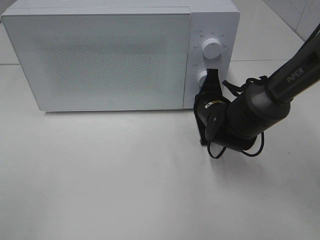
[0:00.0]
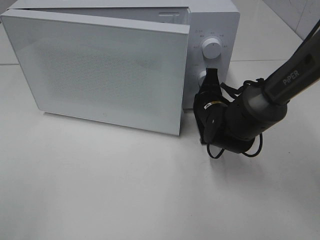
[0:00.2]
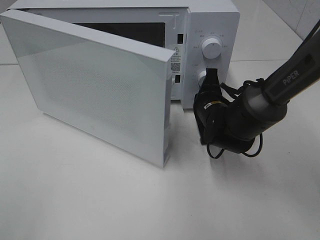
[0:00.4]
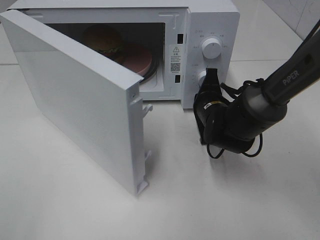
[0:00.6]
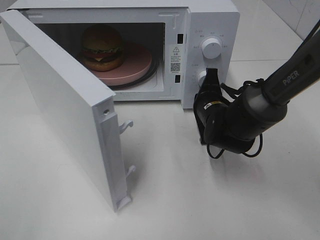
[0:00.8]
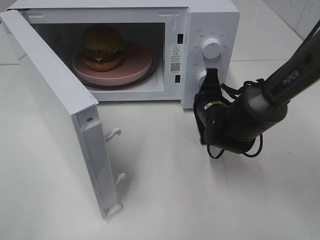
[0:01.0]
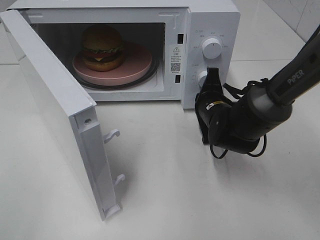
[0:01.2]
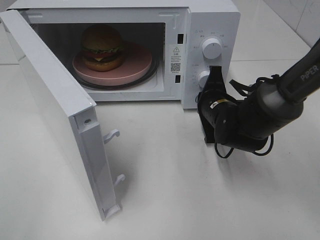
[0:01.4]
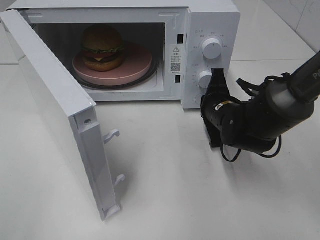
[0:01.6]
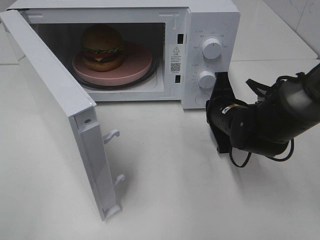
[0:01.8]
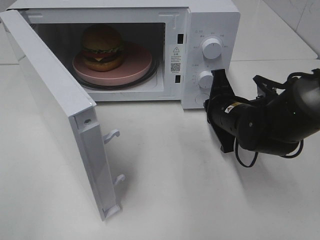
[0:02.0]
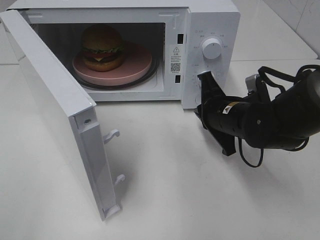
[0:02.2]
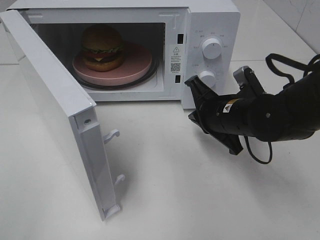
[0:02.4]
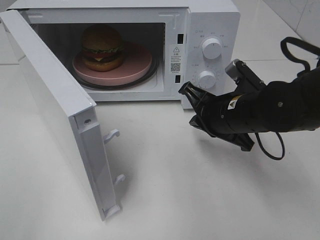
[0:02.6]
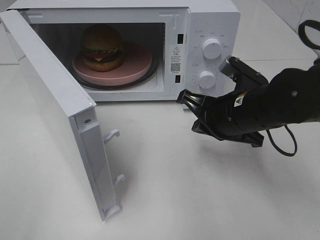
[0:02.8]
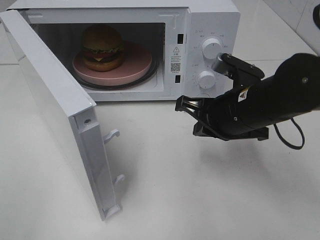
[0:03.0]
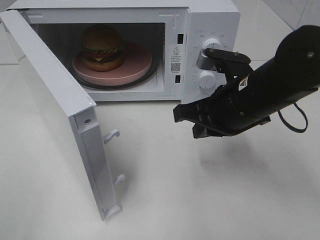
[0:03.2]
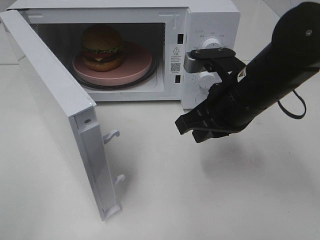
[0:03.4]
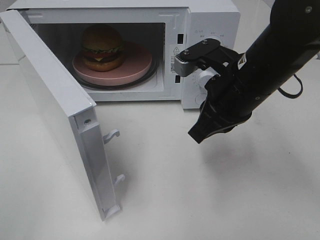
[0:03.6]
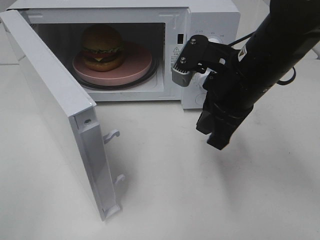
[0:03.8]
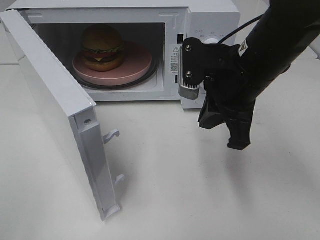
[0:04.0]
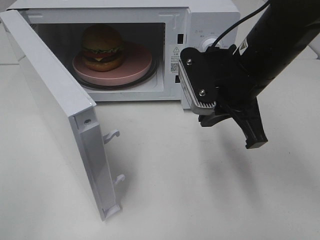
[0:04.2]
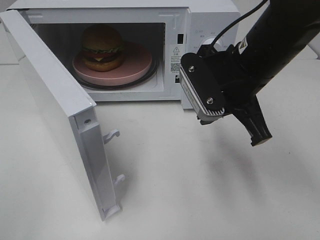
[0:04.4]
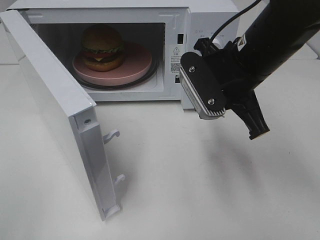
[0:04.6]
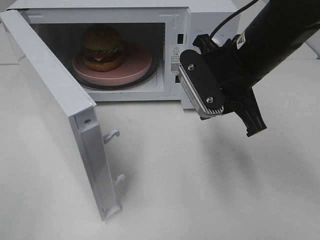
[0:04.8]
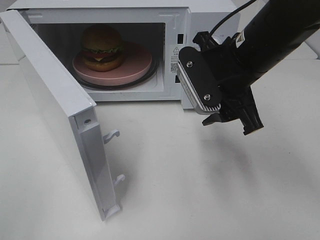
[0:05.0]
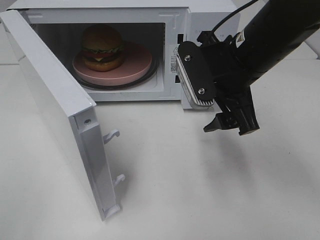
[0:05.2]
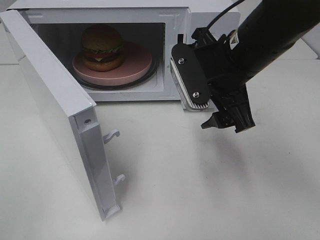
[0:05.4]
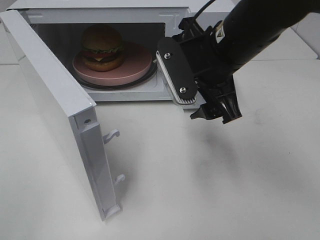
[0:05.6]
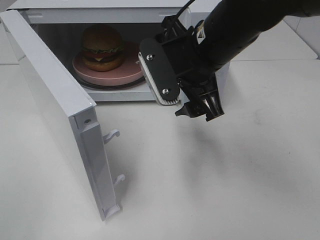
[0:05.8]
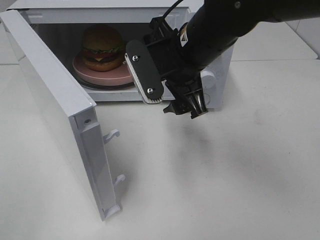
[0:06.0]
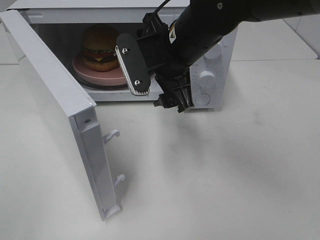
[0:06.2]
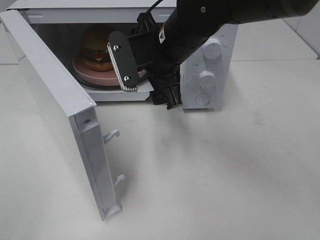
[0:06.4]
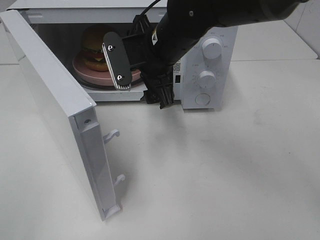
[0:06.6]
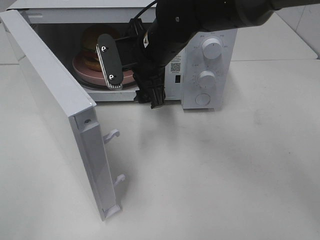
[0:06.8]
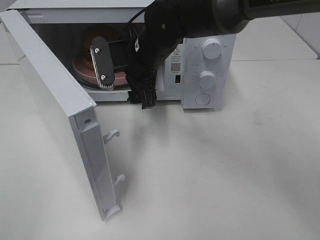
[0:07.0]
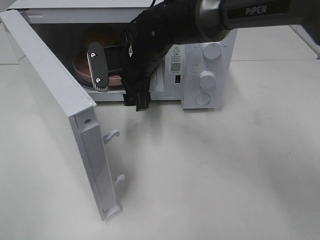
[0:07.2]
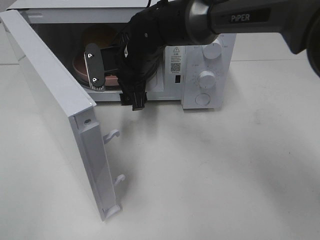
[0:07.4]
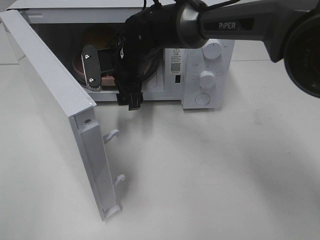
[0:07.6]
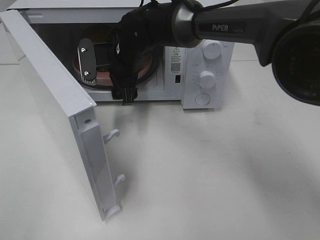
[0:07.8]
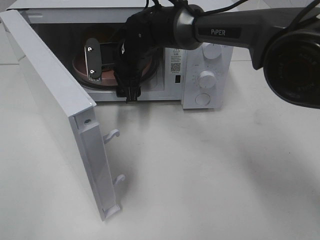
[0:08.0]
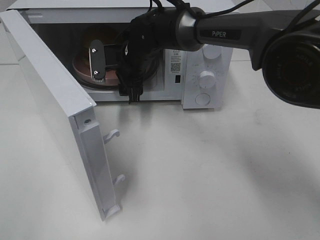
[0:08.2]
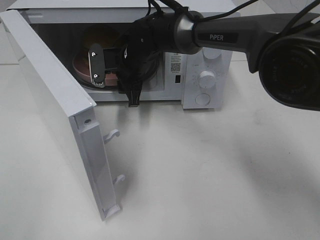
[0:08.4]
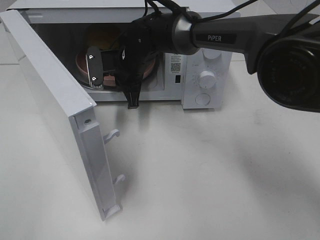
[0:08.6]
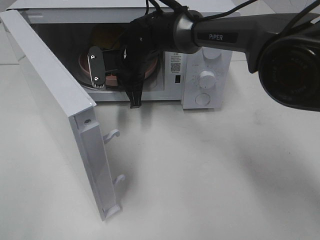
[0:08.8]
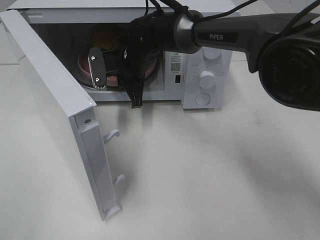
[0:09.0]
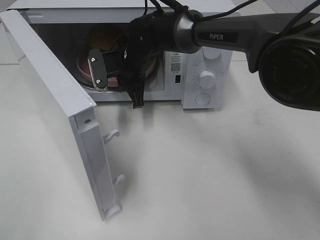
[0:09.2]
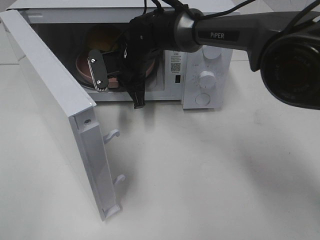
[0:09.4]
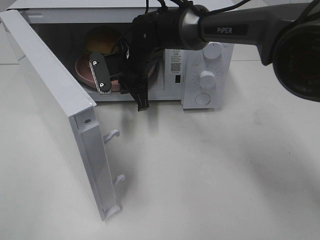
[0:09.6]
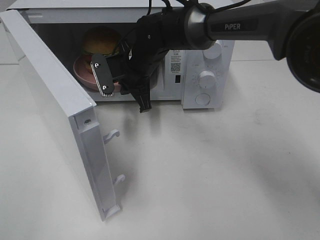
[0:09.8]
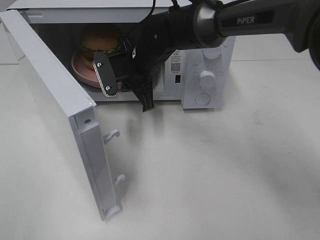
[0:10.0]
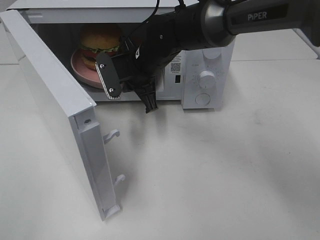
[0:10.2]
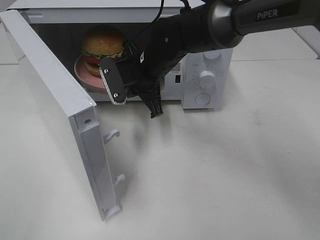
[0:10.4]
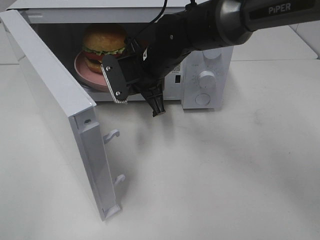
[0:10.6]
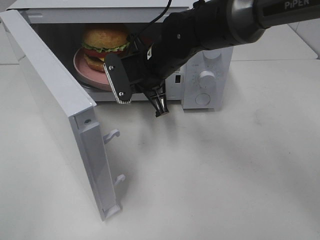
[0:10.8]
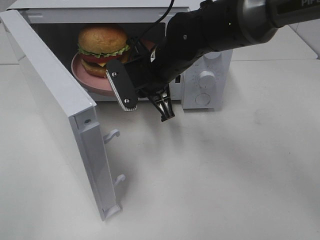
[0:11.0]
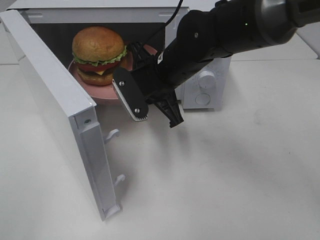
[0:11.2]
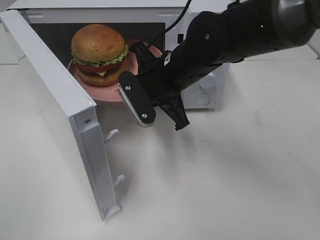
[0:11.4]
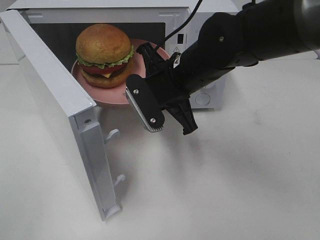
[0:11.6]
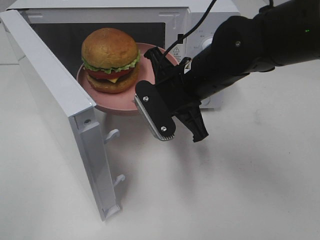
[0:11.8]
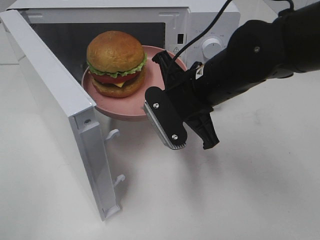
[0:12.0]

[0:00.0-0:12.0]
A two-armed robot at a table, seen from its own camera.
Task of the whole recording: Heat the burger.
Step, 0:00.0 to 0:02.0: Right hand: press the switch.
Step, 0:02.2 to 0:08.8: Right hand: grab the plate with the hamburger.
0:01.6 to 0:03.0: The right gripper travels upward and backward by some 10 cm.
0:03.0 to 0:04.4: The right gripper goes approximately 5 cm upward.
0:04.4 to 0:06.0: The right gripper goes some 5 cm to the left, and opens.
0:06.0 to 0:07.6: The right gripper travels forward, to the left and downward by about 15 cm.
0:07.6 to 0:09.0: The right gripper closes its fingers.
0:09.0 to 0:10.4: The right gripper shifts approximately 5 cm backward.
0:10.4 to 0:12.0: The right gripper is displaced backward and to the right by about 15 cm.

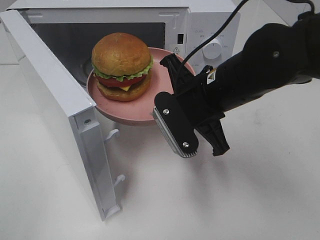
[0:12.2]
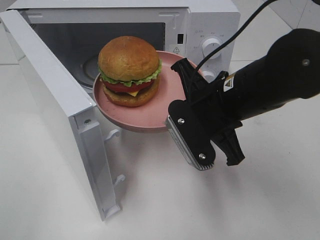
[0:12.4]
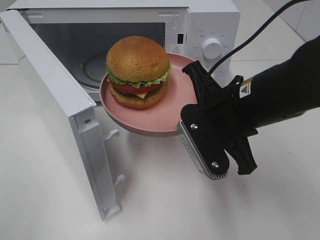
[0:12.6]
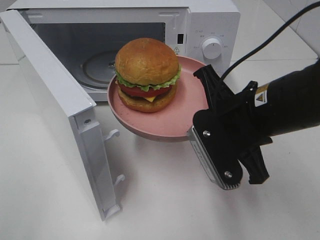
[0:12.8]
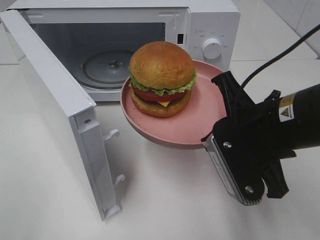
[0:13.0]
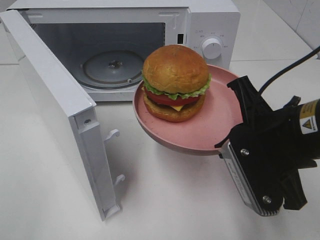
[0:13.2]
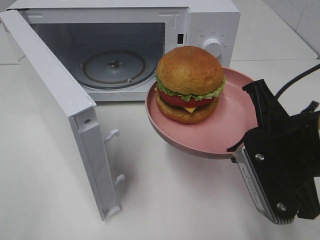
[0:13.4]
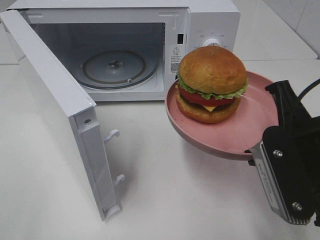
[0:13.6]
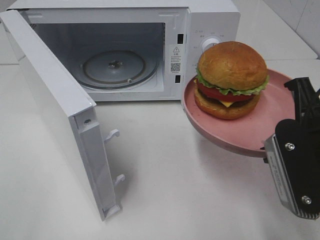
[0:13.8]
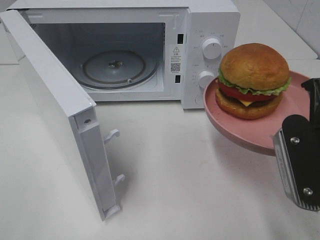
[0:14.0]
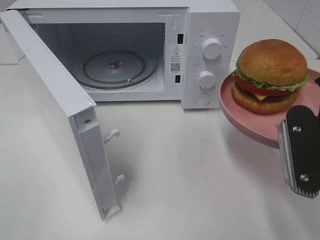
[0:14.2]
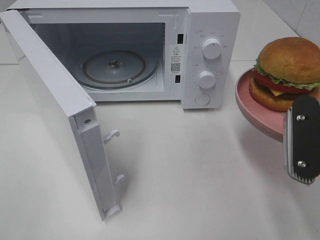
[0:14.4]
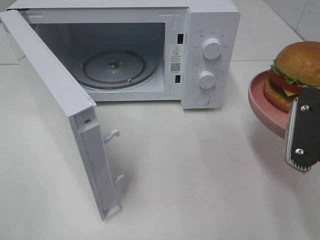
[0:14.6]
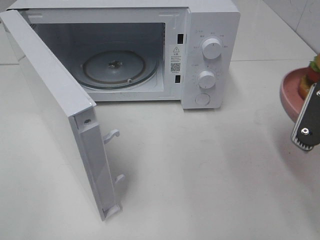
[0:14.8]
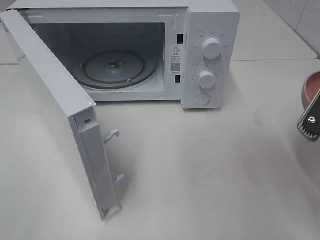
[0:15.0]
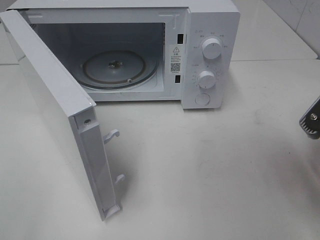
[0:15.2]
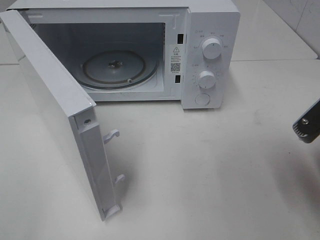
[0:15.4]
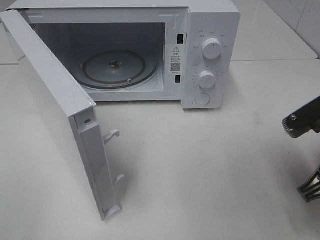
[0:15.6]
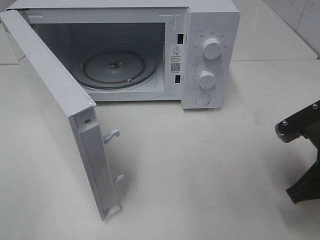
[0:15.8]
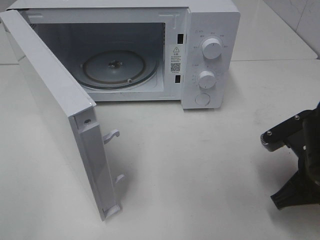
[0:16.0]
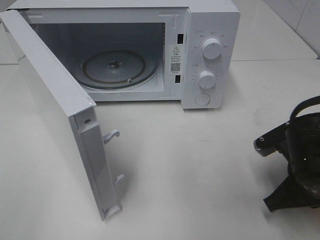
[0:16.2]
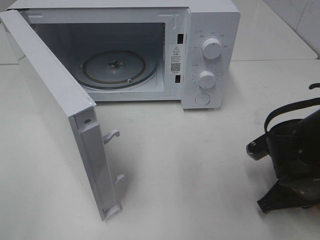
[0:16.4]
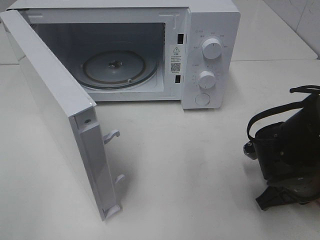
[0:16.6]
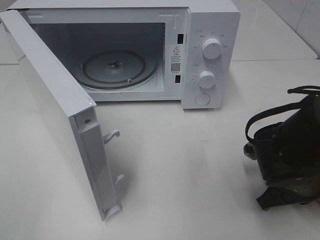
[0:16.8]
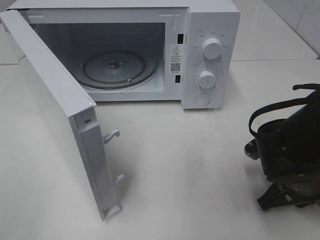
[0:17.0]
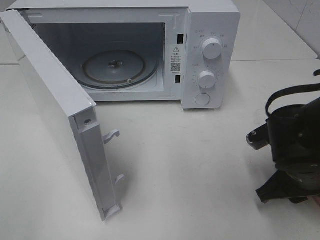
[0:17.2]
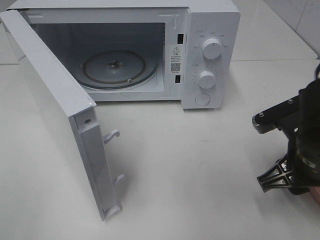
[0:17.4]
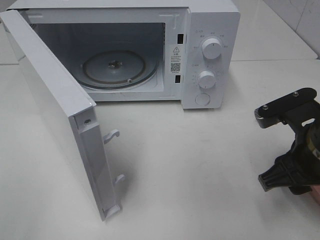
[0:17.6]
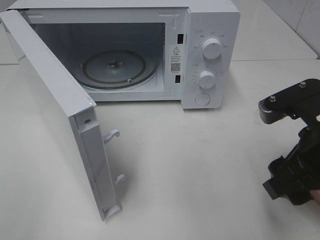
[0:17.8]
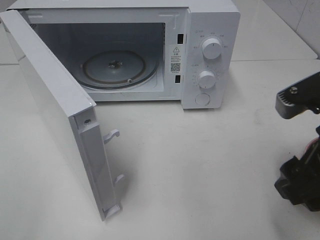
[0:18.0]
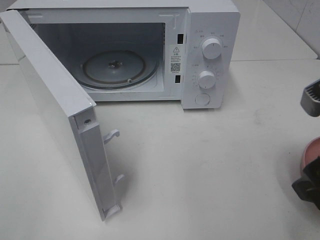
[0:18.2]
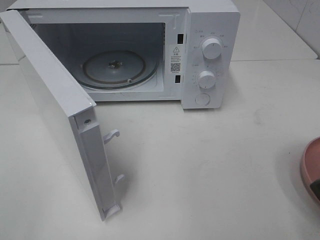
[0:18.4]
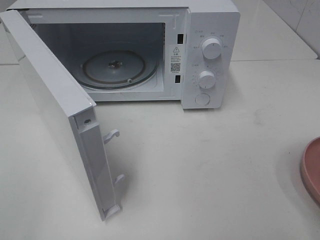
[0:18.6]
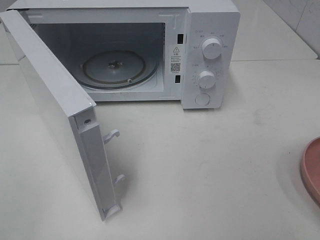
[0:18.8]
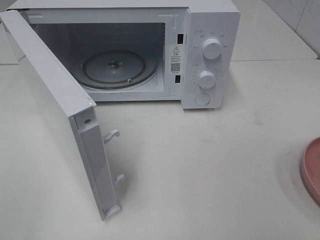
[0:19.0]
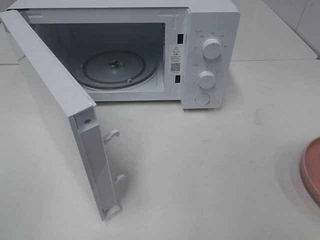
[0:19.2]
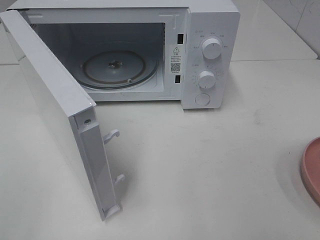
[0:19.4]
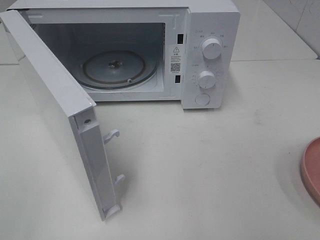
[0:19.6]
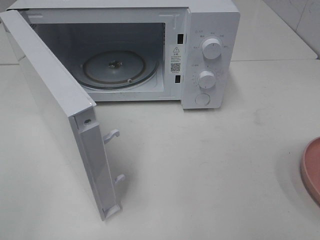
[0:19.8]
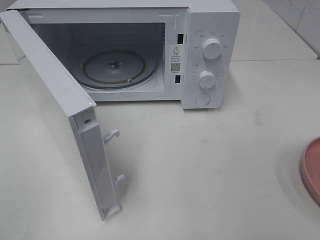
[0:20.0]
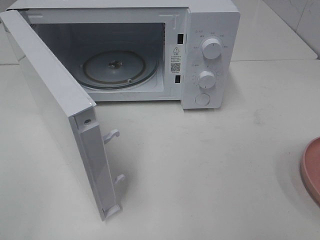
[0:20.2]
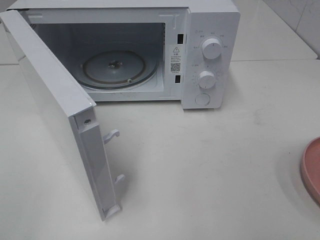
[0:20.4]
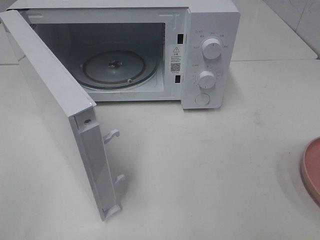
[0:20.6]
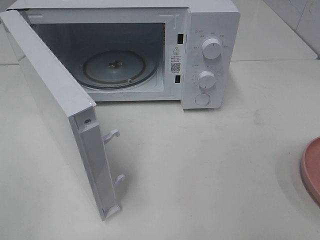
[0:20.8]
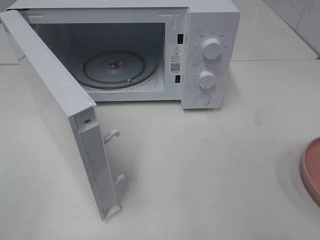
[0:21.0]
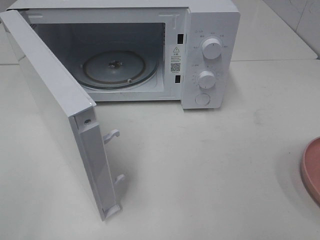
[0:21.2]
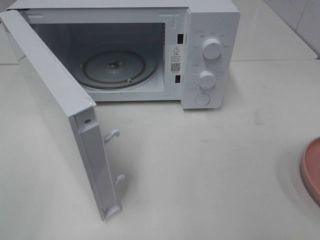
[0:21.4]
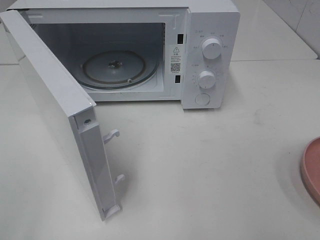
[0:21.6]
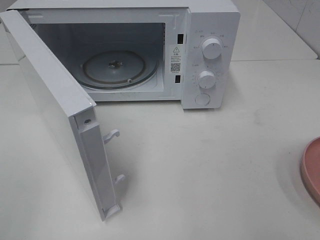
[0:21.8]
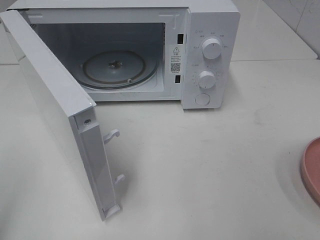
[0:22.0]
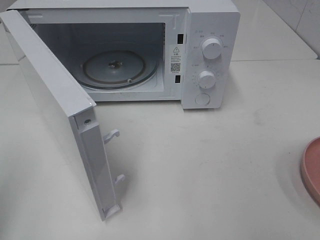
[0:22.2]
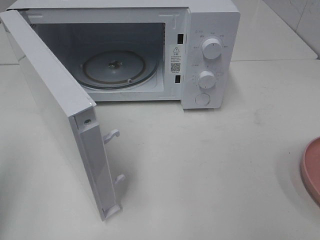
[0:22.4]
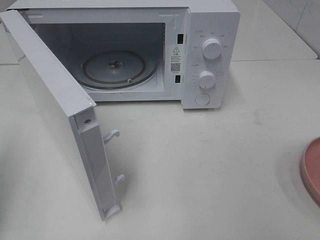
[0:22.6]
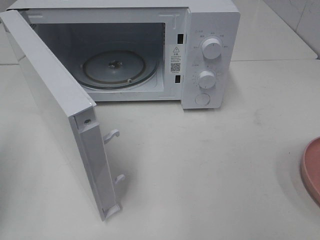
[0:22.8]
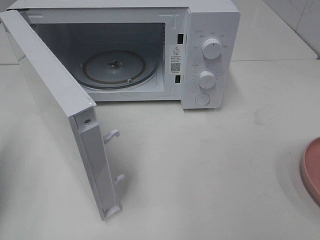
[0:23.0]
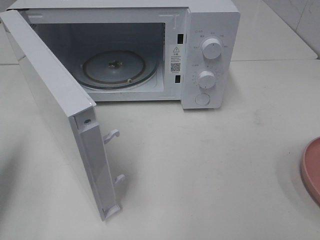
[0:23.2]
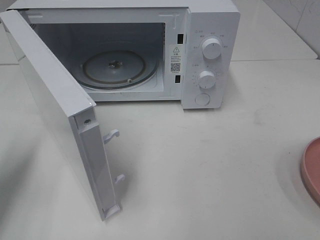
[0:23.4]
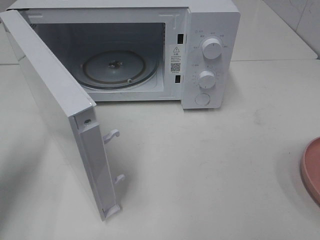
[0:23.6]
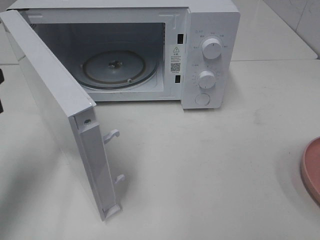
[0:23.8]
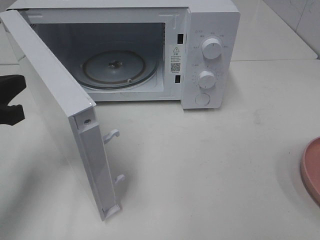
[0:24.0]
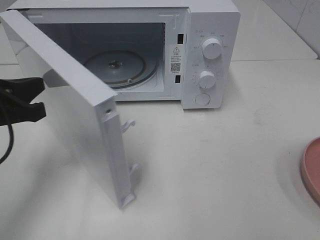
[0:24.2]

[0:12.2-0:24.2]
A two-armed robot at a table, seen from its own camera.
Task of the whole recording: Heat the burger.
Step, 0:12.2 to 0:17.4: Right hand: place the plate on the table.
0:12.2 to 0:13.8: The right gripper goes approximately 15 cm backward and to the right.
0:15.2 to 0:16.6: The right gripper heads downward and forward, covering some 15 cm.
0:16.6 to 0:18.2: The right gripper travels upward and backward by approximately 20 cm, and opens its fingers.
0:18.2 to 0:19.8: The right gripper moves backward and to the right, roughly 15 cm.
0:19.8 to 0:21.2: Both grippers stay put.
0:21.2 to 0:22.6: The left gripper moves forward, about 15 cm, and closes its fingers.
0:22.6 to 0:24.2: The left gripper moves to the right, forward and downward, some 15 cm.
